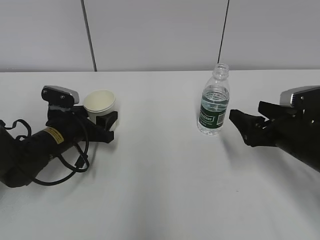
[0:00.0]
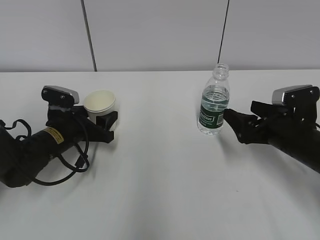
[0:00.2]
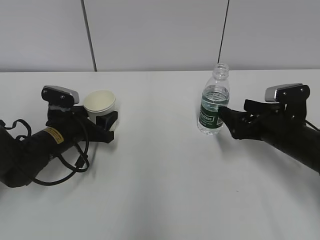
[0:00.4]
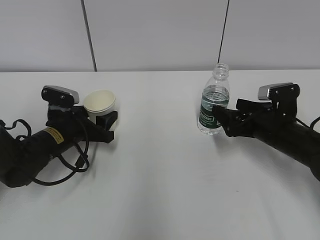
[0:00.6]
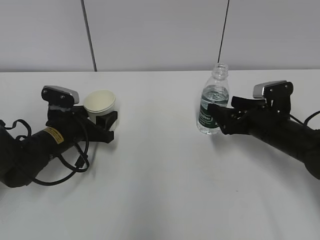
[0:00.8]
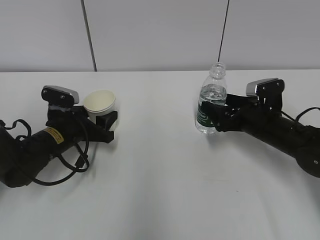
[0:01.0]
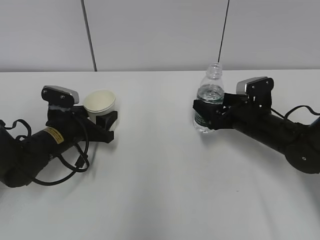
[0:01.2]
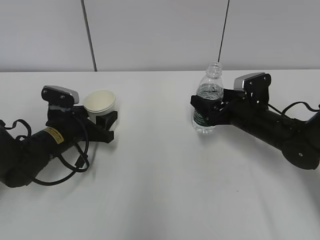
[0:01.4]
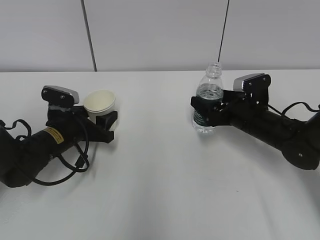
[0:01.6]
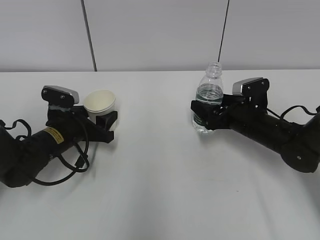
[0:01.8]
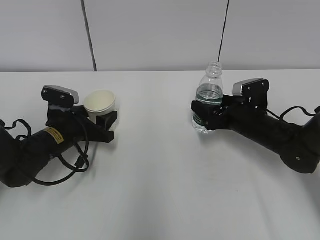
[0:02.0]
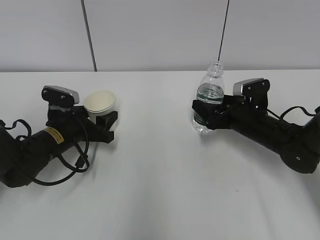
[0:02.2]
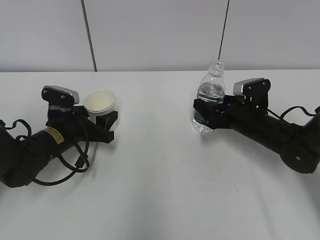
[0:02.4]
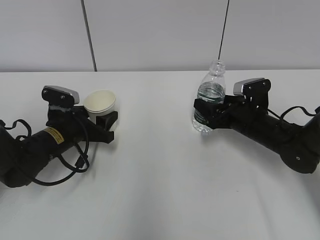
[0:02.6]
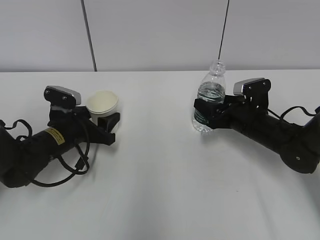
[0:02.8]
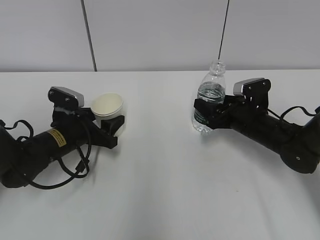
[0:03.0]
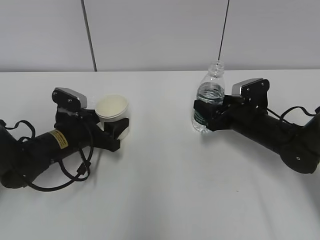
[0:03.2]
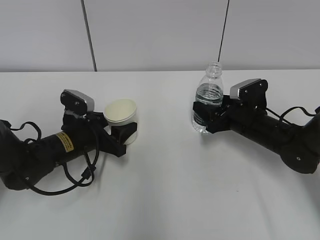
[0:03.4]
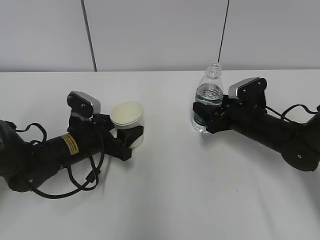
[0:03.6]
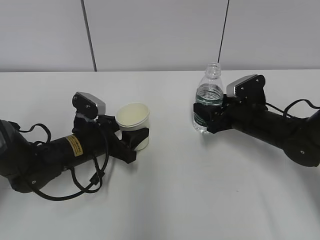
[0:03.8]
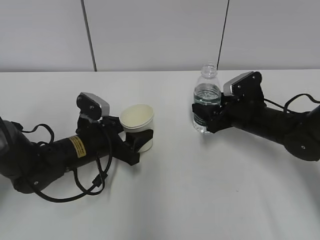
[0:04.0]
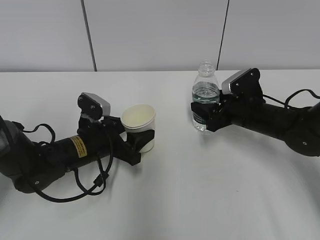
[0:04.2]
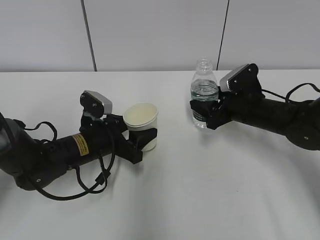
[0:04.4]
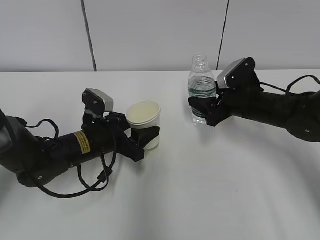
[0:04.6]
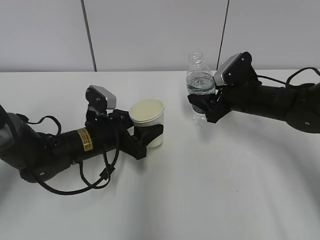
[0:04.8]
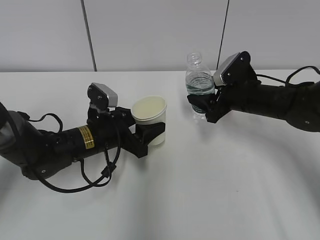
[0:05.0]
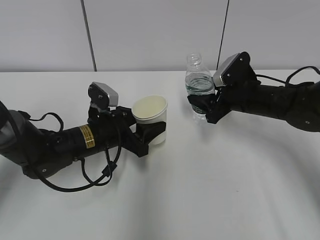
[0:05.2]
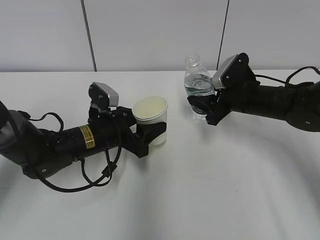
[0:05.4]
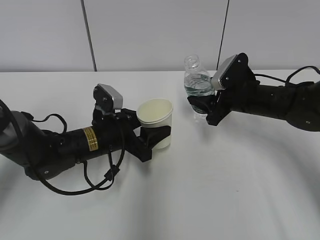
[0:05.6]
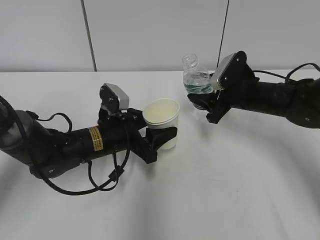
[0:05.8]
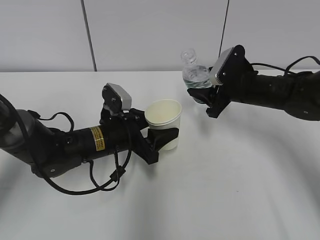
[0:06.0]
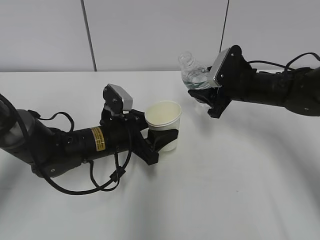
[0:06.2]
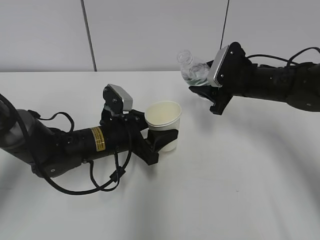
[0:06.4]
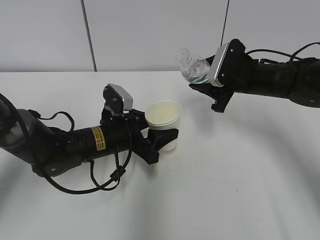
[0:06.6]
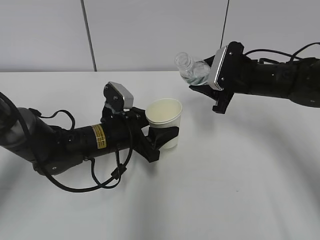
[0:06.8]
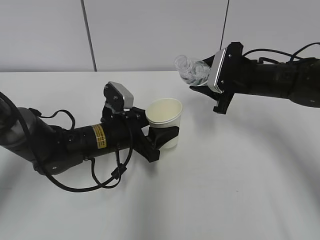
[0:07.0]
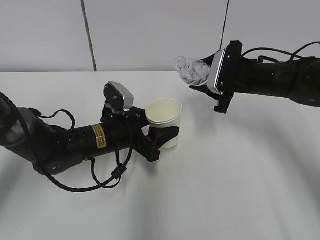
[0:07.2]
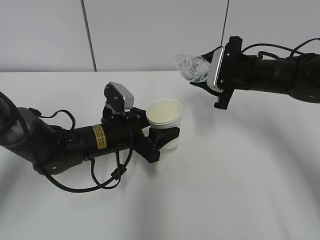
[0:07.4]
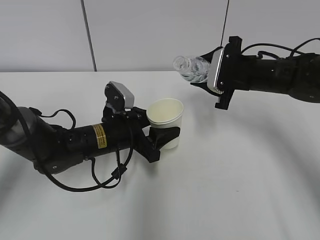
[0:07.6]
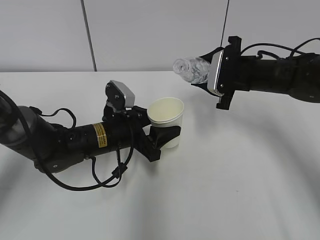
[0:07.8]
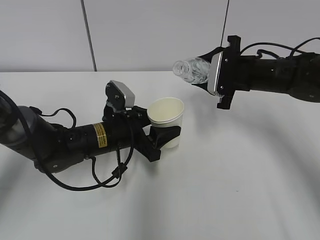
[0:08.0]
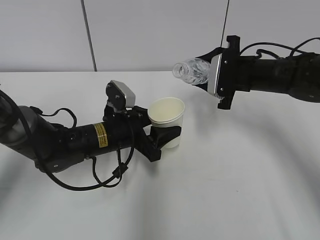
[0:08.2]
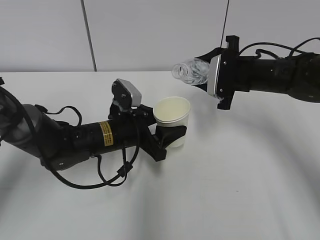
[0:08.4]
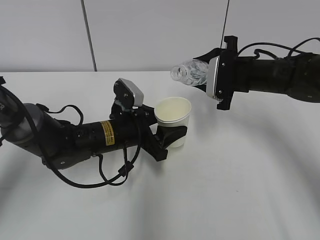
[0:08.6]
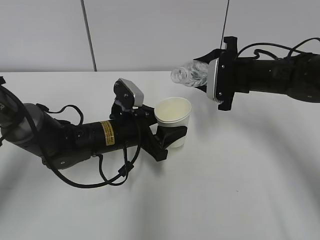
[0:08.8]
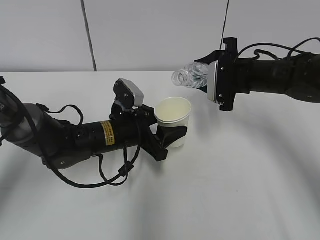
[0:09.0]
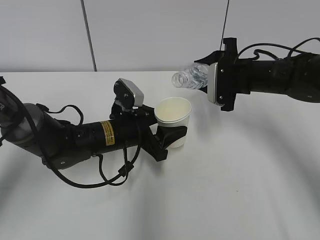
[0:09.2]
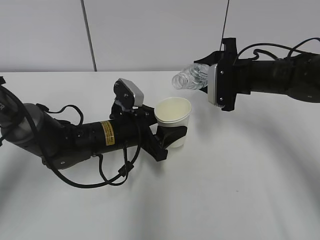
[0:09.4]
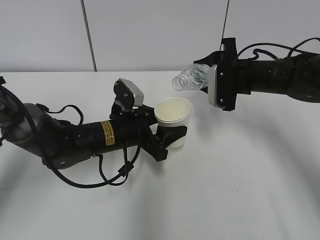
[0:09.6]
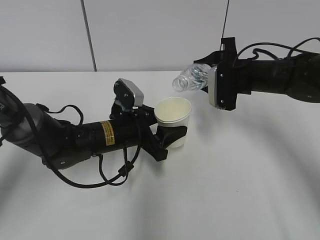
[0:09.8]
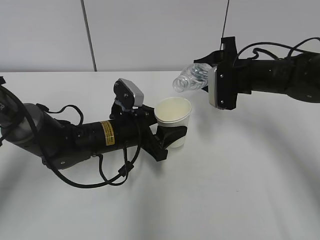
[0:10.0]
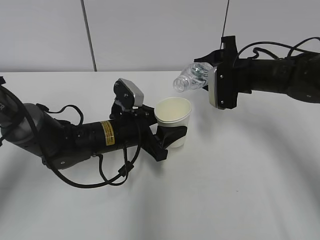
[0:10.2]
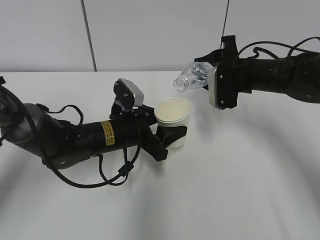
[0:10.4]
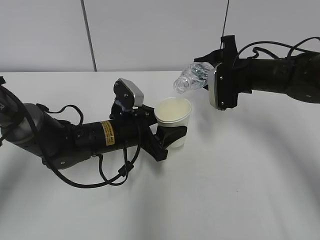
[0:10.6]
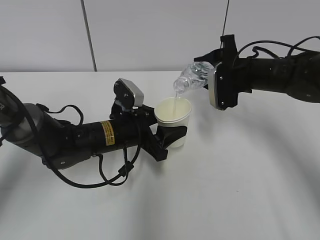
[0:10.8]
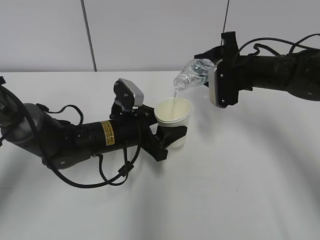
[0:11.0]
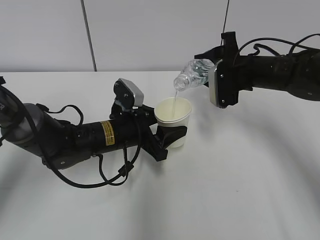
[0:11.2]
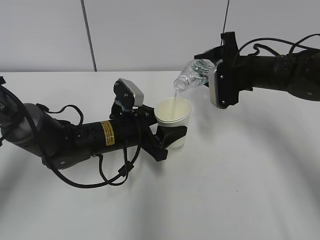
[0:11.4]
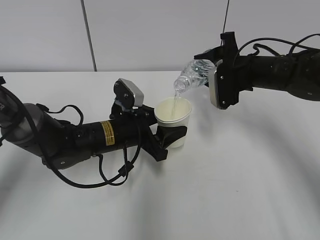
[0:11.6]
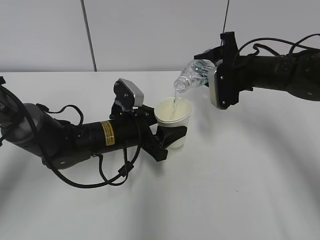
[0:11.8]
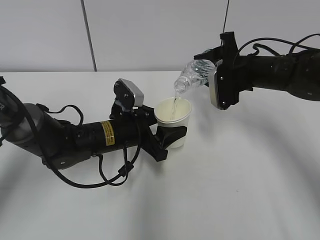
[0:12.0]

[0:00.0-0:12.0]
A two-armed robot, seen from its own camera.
Step, 0:00.4 to 0:01.0: Grab the water bottle with the right hand.
Step, 0:01.2 to 0:06.6: Lift the paper cup with the left hand.
Step, 0:06.8 to 0:11.0: Fill water with the left hand.
Step, 0:06.8 to 0:11.0: Pour water with the right hand.
0:00.0 to 0:01.6: The right gripper is displaced forward by some 10 cm.
0:01.6 to 0:03.0: The right gripper closes its fingers.
0:03.0 to 0:04.4: The left gripper goes some 5 cm to the right.
0:07.6 to 0:09.0: There are only small adjustments of the grippers.
0:09.0 to 0:12.0: There are only small adjustments of the grippers.

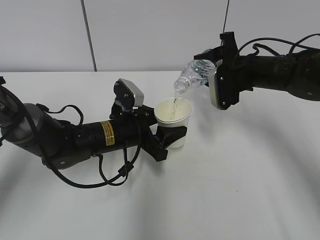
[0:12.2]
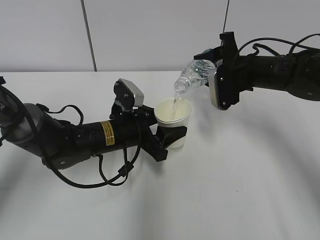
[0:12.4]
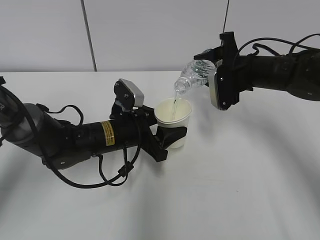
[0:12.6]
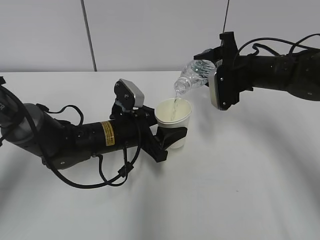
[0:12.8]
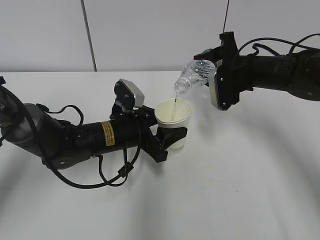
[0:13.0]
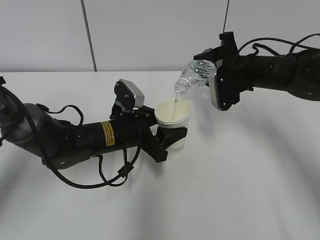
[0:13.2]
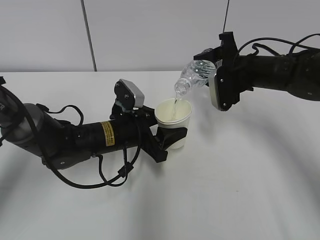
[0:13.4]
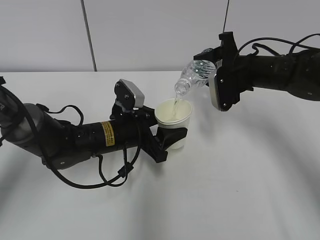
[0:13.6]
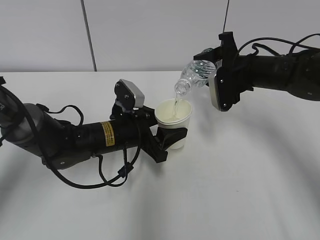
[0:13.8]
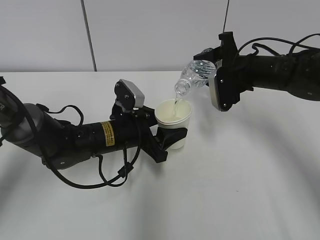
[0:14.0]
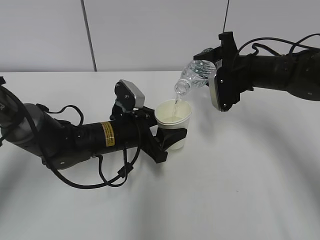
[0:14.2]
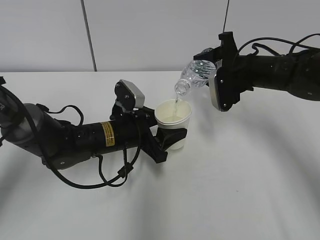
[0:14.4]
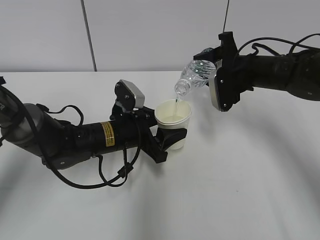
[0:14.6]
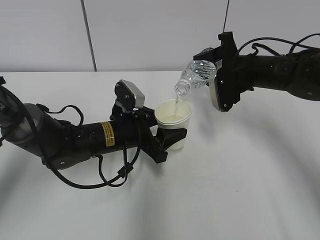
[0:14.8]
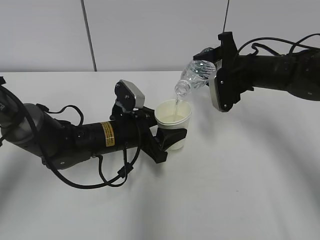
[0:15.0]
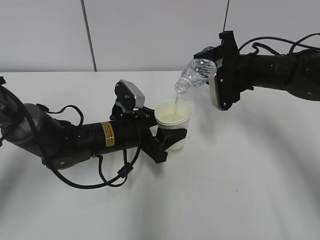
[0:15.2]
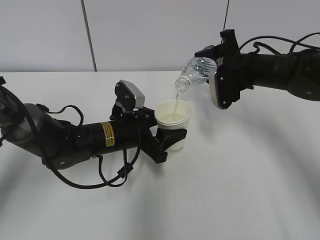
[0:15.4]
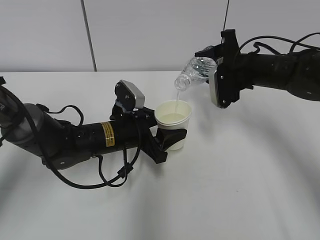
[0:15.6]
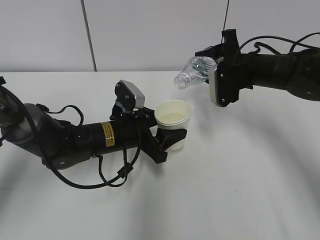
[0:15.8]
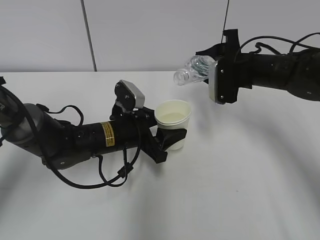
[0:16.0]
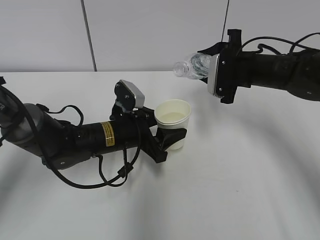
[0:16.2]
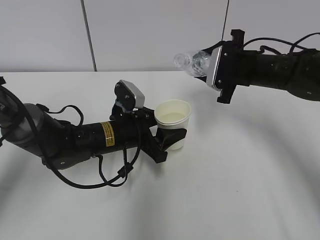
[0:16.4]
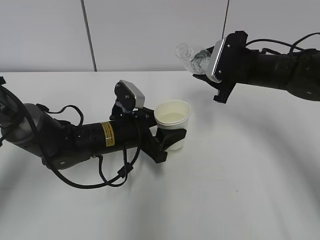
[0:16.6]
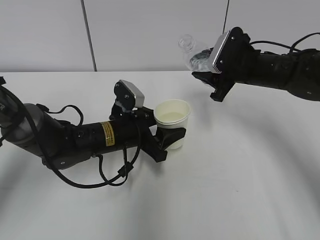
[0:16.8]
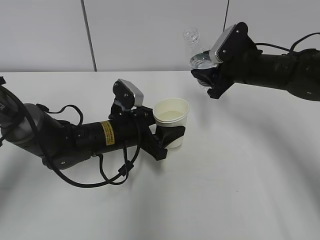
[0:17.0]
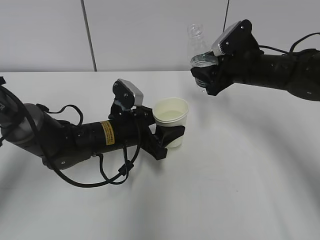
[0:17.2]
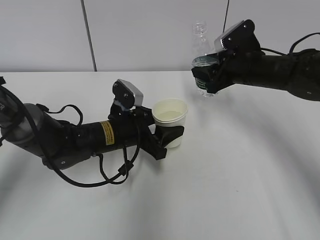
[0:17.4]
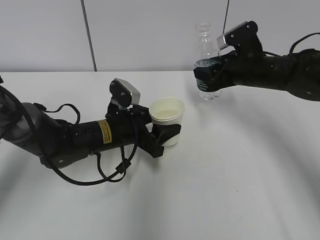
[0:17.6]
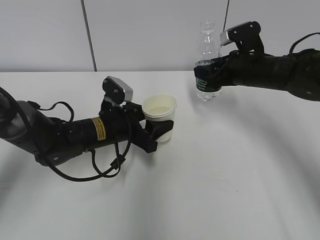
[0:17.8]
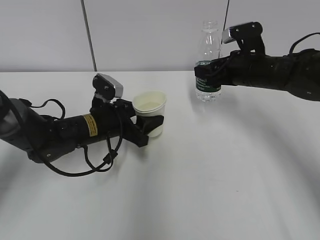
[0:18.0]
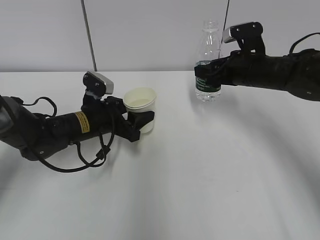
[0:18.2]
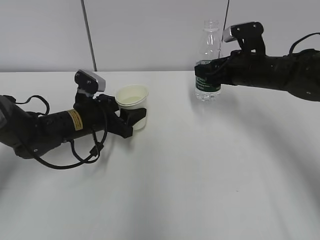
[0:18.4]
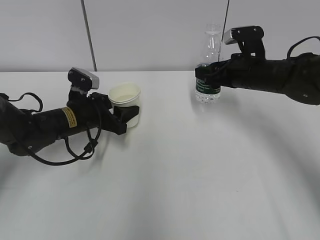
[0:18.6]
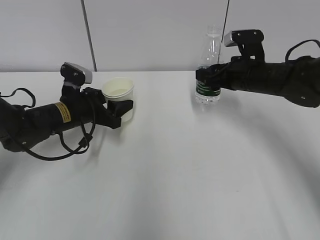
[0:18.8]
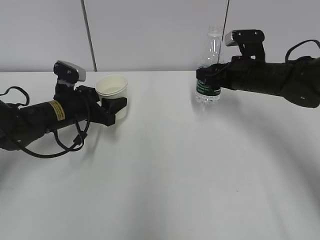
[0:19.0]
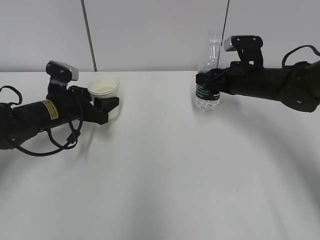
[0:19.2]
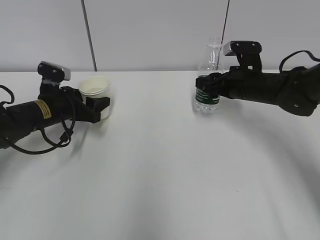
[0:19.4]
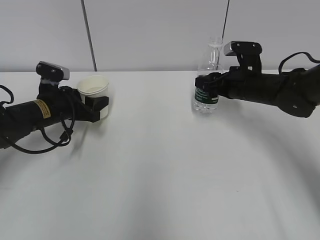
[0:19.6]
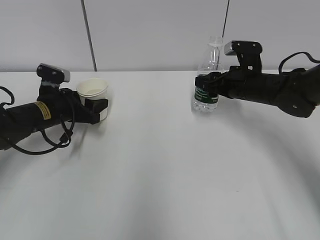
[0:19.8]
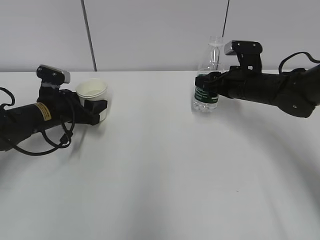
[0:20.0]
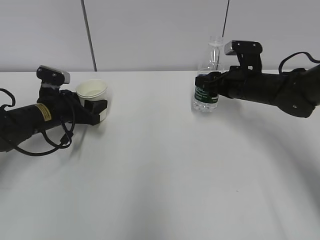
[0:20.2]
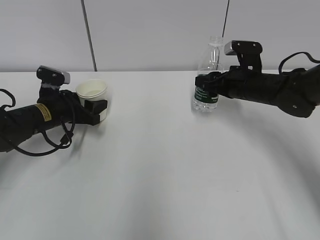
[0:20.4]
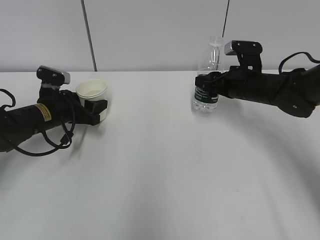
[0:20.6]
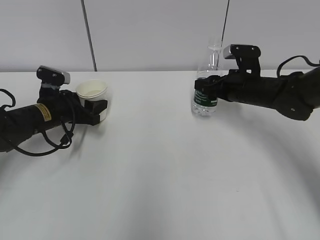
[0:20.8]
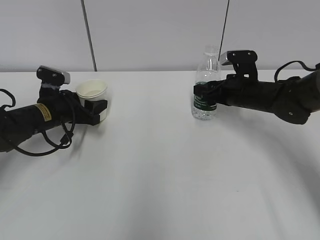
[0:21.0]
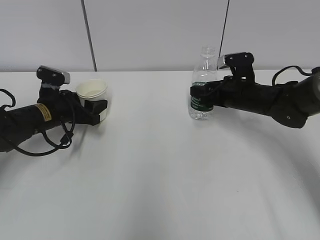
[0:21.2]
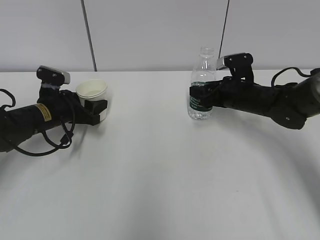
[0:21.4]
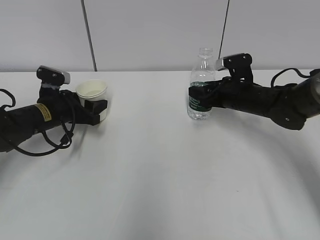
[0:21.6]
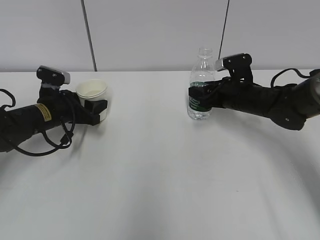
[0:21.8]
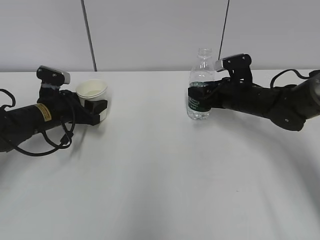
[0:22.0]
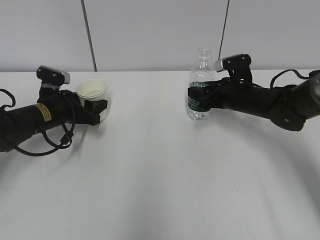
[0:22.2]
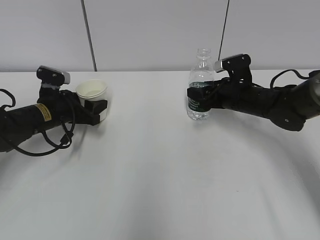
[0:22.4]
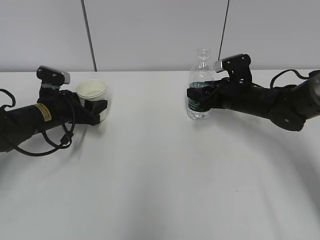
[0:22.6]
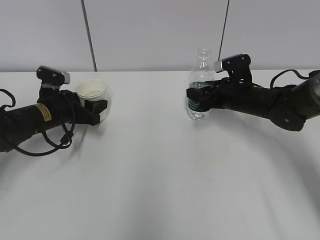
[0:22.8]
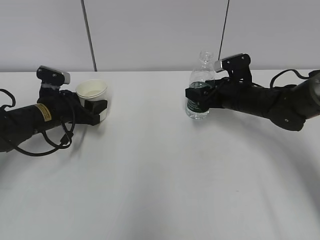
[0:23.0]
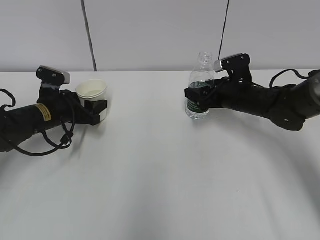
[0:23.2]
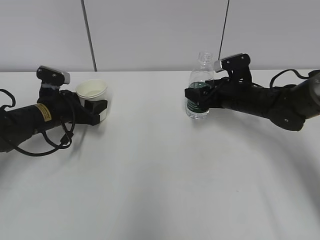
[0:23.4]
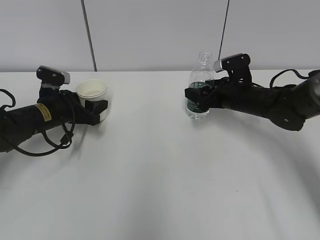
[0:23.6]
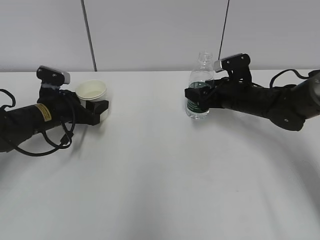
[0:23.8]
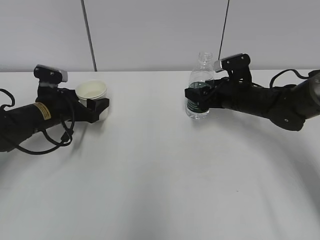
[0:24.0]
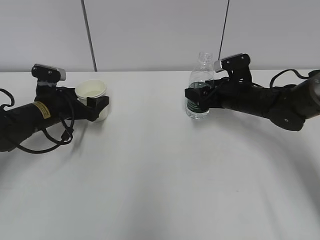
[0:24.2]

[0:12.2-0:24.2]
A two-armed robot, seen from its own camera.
Step, 0:12.8 to 0:17.8: Place the paper cup with the left hand.
Step, 0:18.0 to 0:19.0: Place the water bottle with the right hand.
0:12.2 to 0:15.2: The two grippers keep their place.
0:16.6 to 0:18.2: The left gripper is displaced to the left by some 5 cm.
0:18.2 to 0:19.8: The left gripper goes some 10 cm to the left.
0:19.8 to 0:22.6: The grippers make only small movements.
0:22.6 to 0:24.2: The left gripper opens up.
